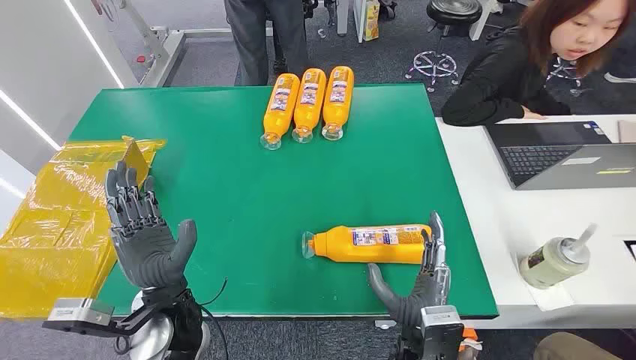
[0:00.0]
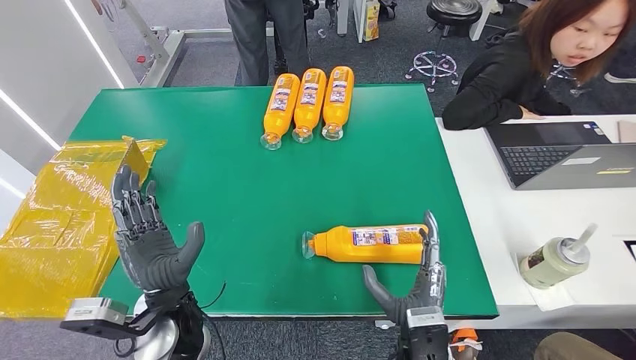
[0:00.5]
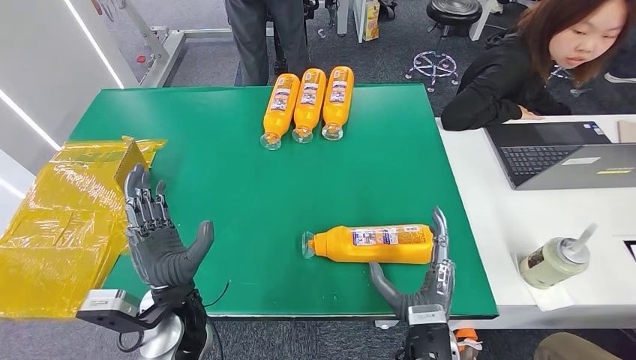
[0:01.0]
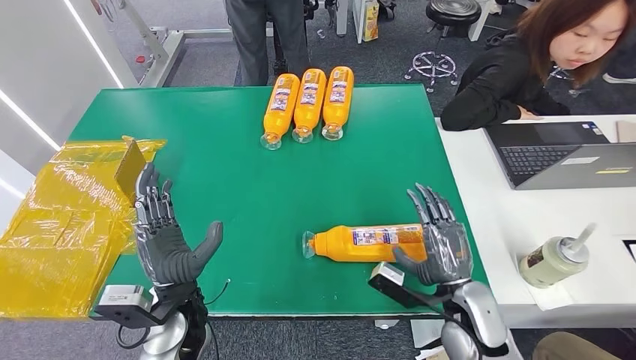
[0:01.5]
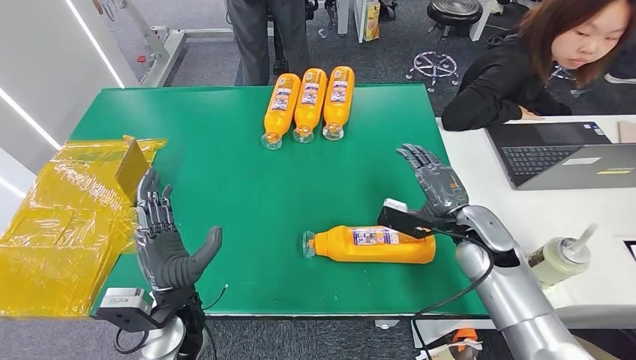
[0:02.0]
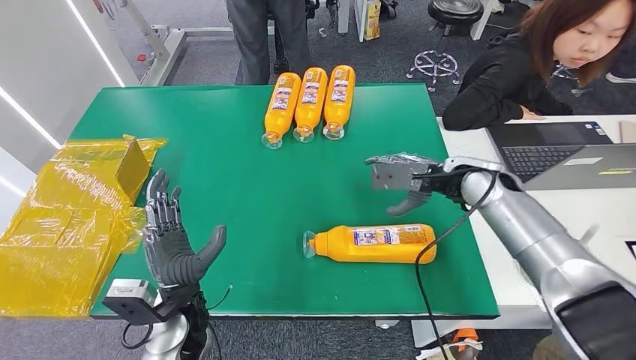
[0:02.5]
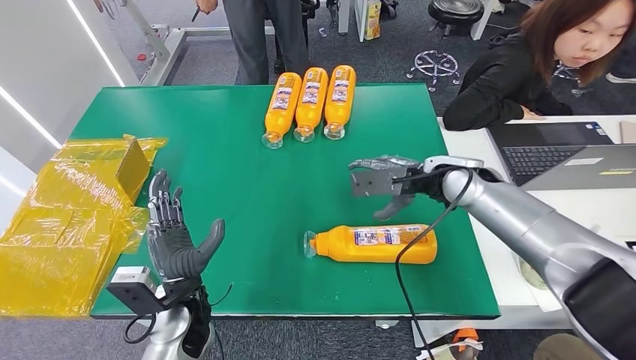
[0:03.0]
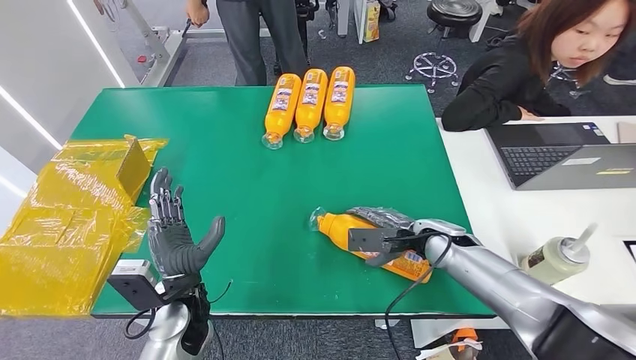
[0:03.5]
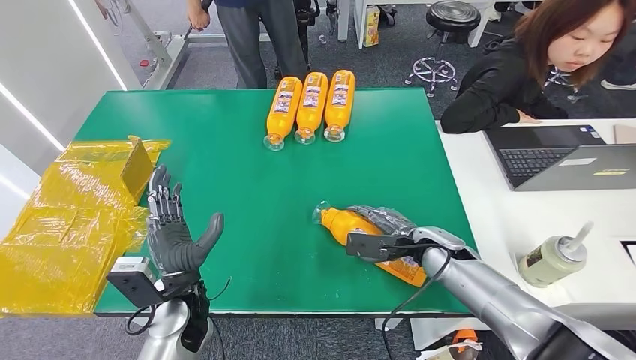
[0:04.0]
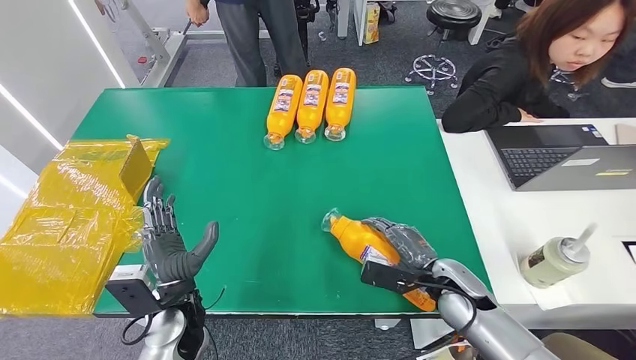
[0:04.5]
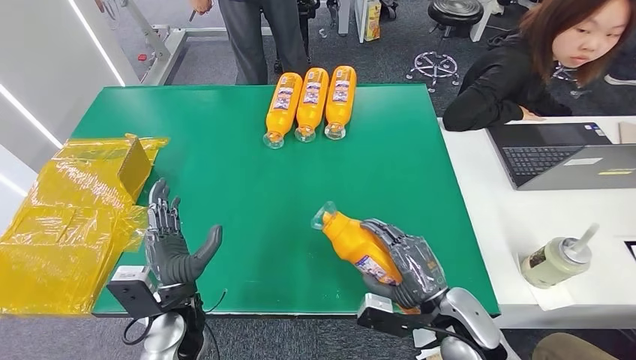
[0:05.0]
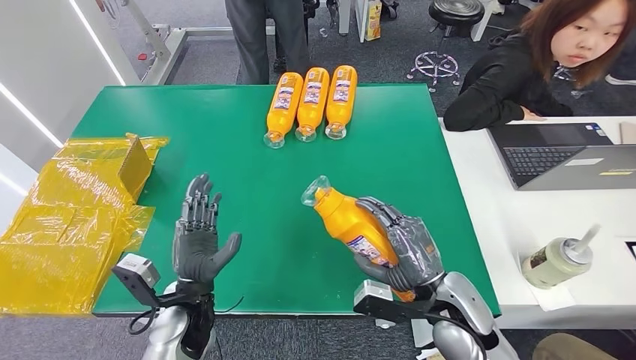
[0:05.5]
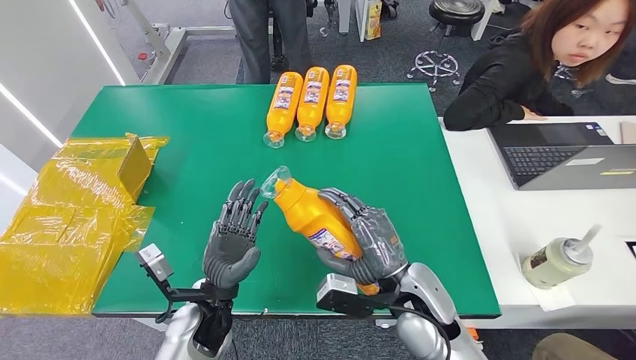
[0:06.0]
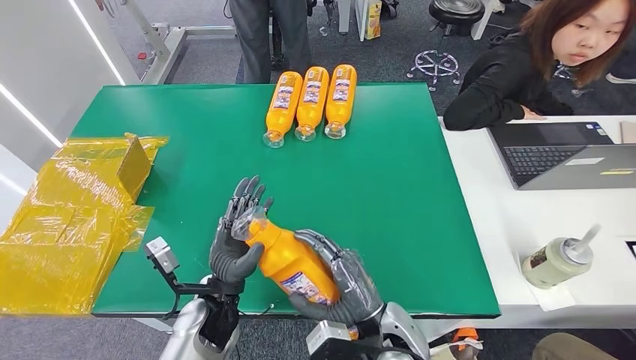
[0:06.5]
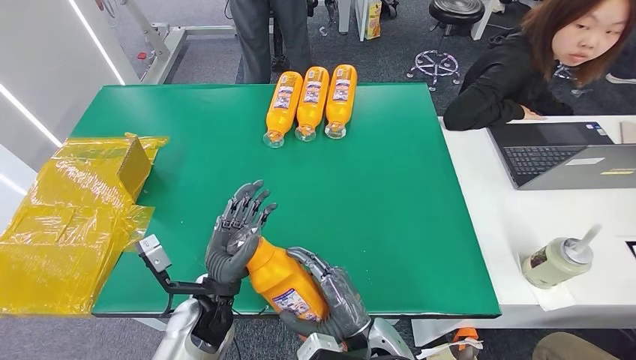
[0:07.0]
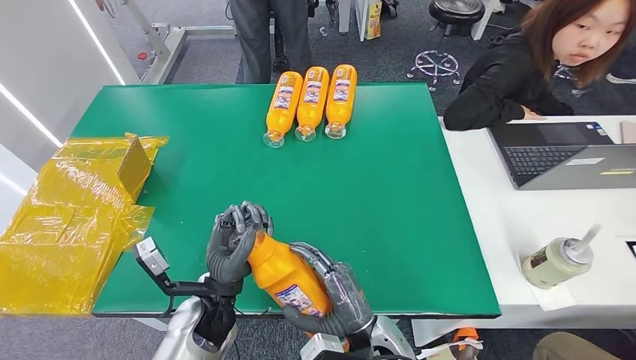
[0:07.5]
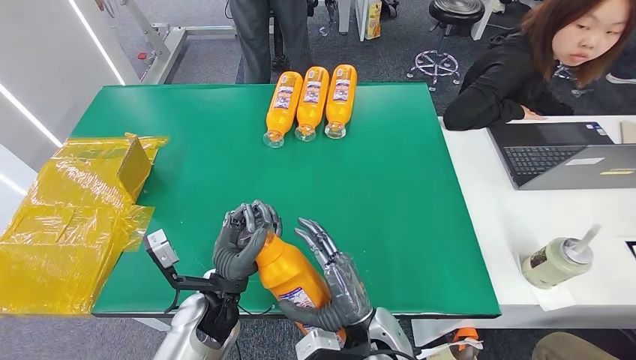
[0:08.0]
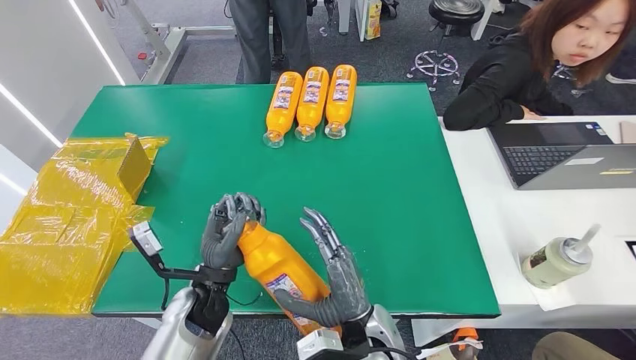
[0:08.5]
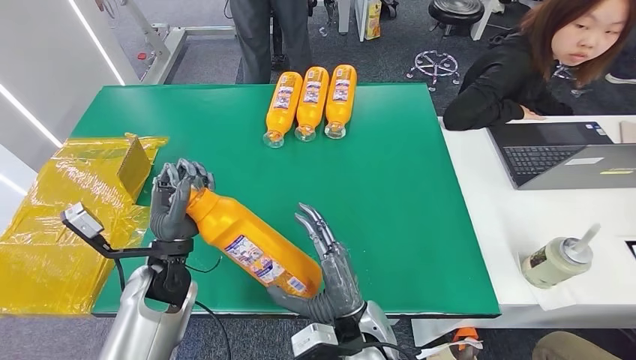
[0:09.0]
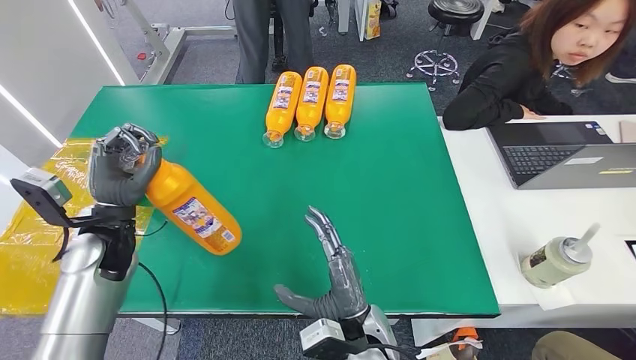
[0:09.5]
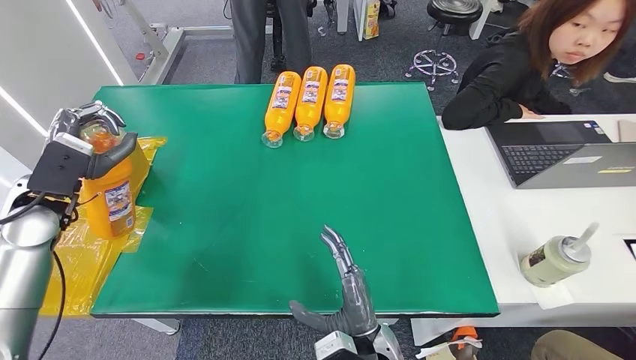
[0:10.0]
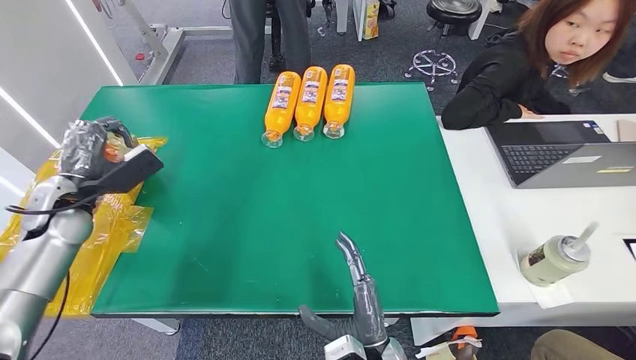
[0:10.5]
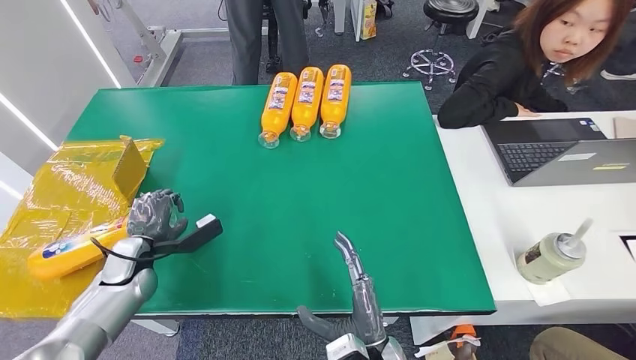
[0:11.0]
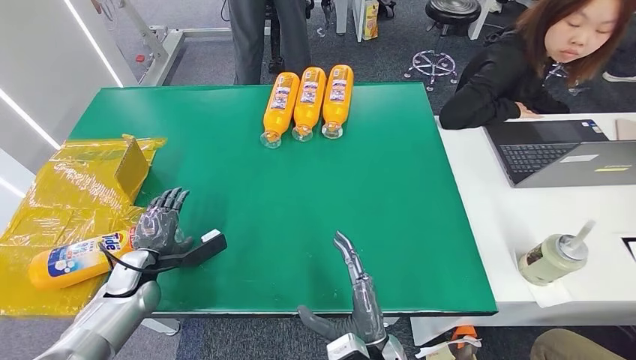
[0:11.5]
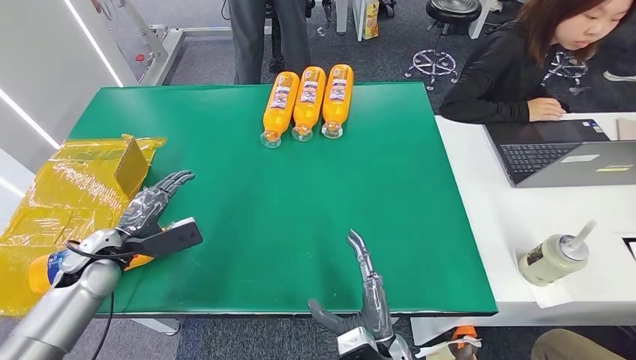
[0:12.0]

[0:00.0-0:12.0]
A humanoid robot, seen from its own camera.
Step, 0:00.0 to 0:05.0: Pick up the bottle from the table.
Step, 0:05.5 to 0:12.0: Turn the bottle to the front side.
0:06.0 to 0:08.0: The right hand goes some 10 cm downward, to the left and backward.
0:08.0 to 0:10.0: The left hand shifts approximately 35 cm to the left, forward and upward.
0:10.0 to 0:12.0: The left hand travels downward and backward by roughly 15 cm.
